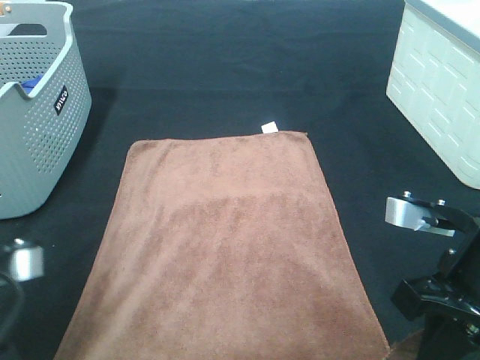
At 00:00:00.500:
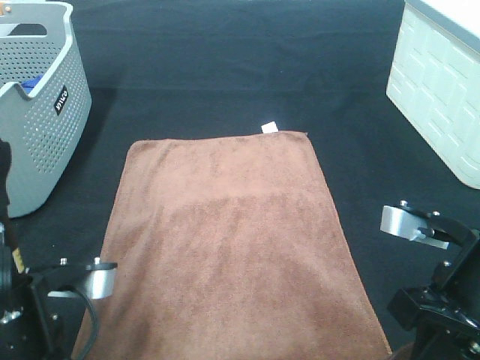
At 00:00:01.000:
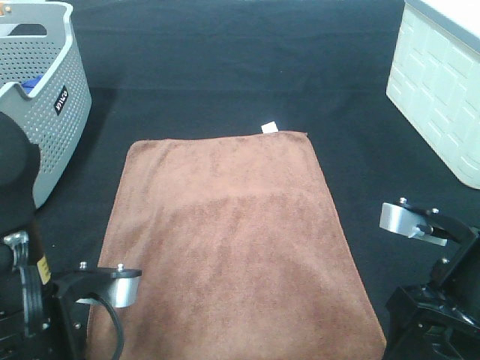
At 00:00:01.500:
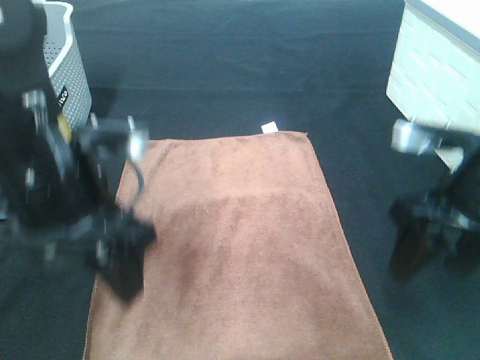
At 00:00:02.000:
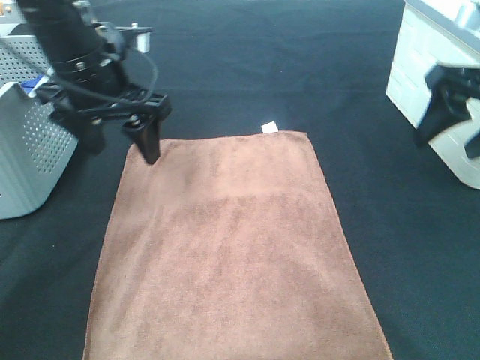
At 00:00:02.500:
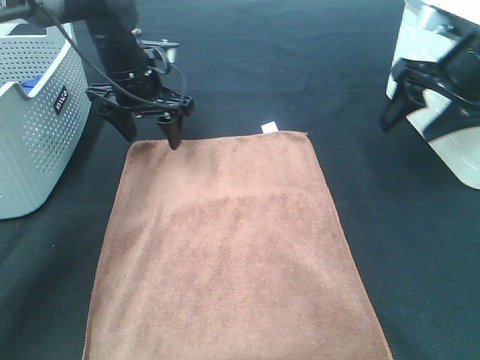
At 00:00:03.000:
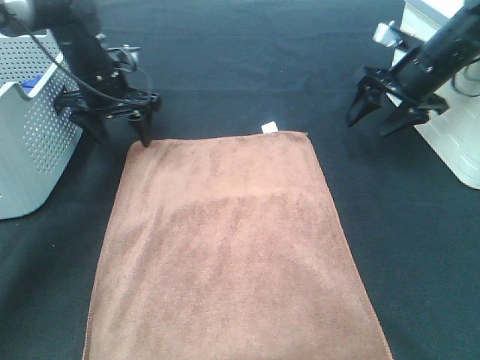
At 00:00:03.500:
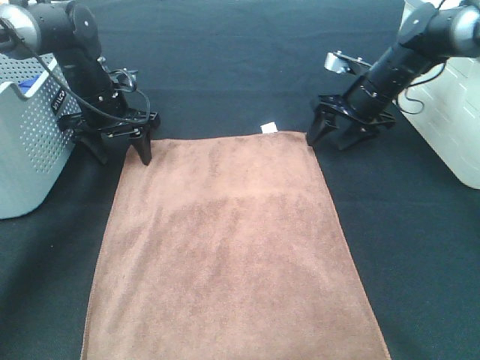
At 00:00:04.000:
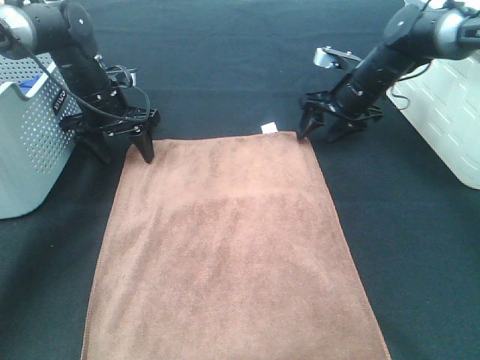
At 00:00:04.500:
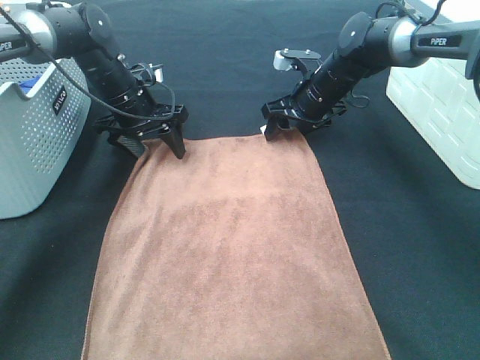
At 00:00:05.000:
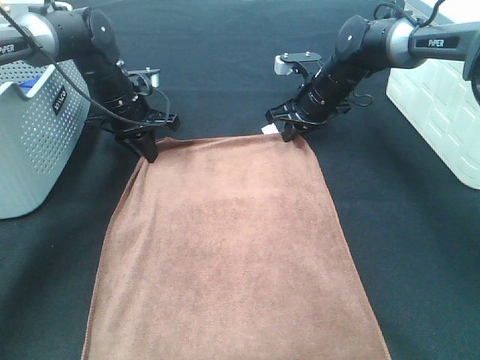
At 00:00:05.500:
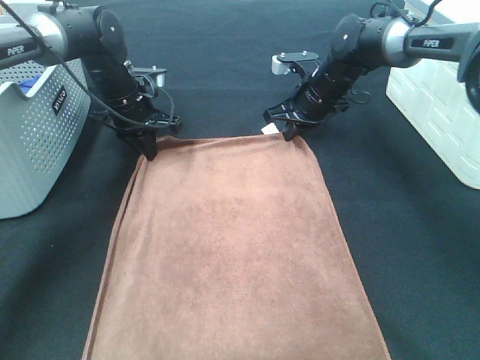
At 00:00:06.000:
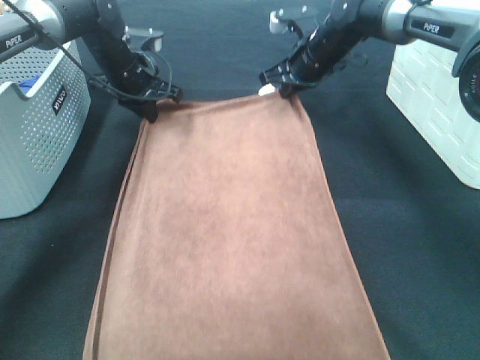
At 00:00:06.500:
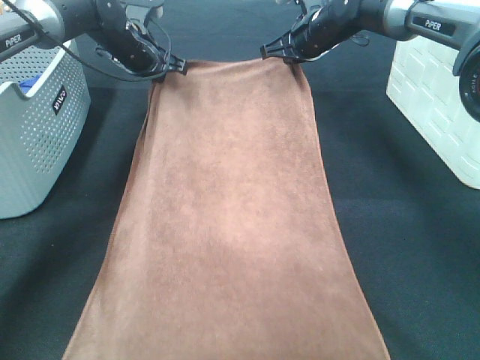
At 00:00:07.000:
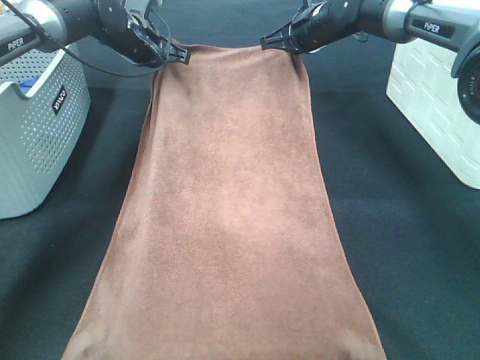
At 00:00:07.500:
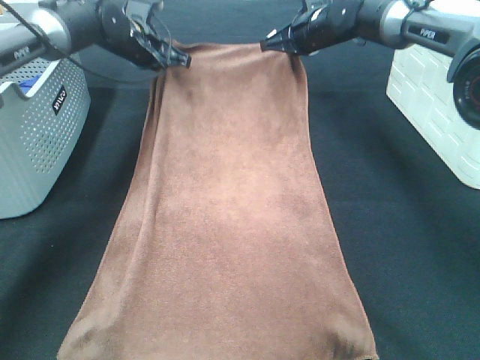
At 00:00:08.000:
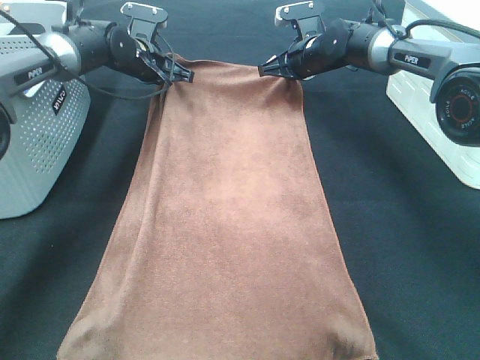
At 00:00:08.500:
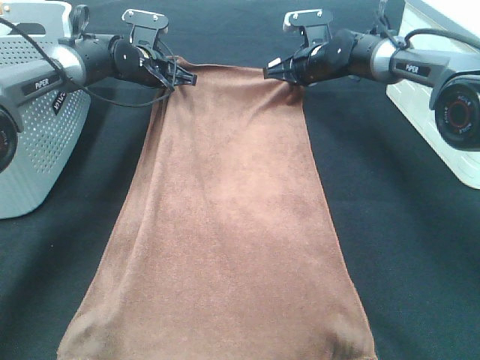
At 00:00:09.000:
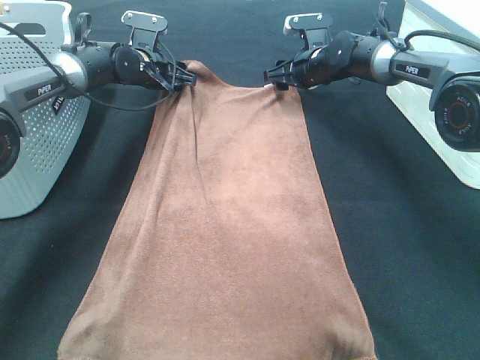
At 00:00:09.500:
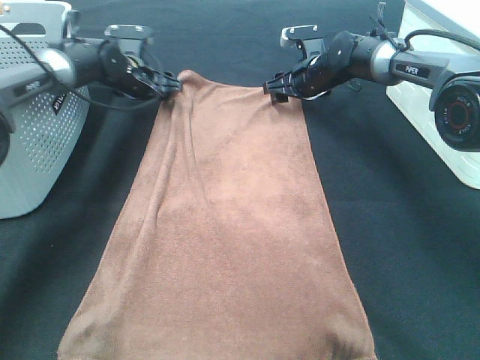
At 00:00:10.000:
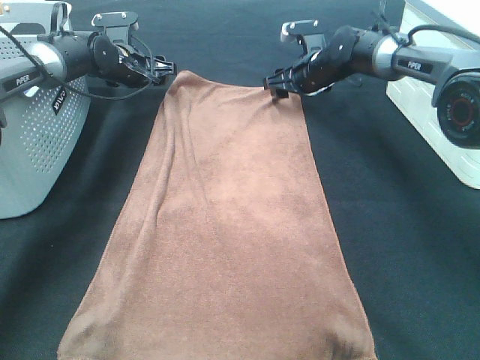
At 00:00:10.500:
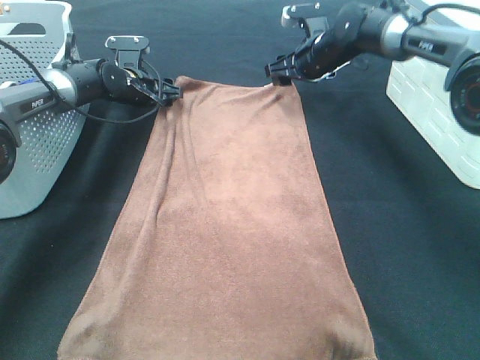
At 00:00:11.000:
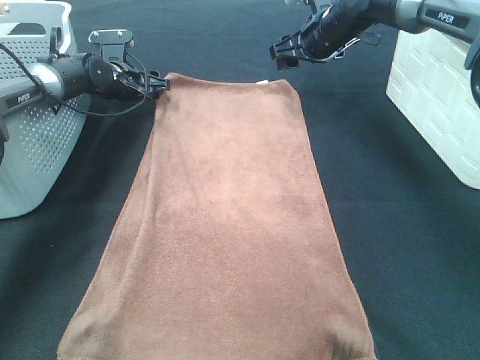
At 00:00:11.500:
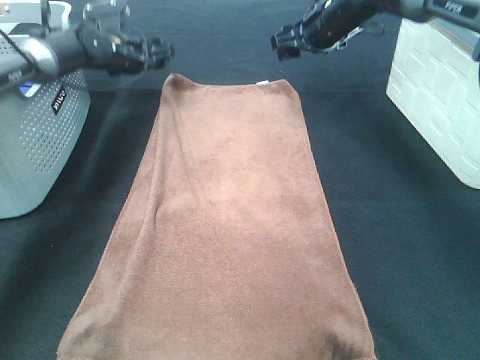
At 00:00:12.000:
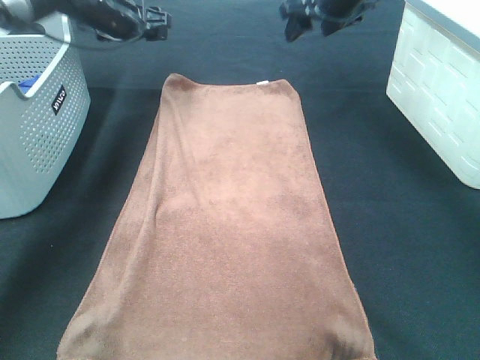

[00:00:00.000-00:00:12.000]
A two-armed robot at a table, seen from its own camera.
Task of the whole recording: Remove the towel and place it.
Step, 00:00:00.000 to 00:00:02.500: Right hand:adjust the brown towel.
Step, 00:00:00.000 to 00:00:04.000: Left hand:adjust the brown towel.
00:00:00.000 to 00:00:02.000: The left gripper heads forward, covering about 25 cm, and opens its fingers. Meanwhile the right gripper goes roughly 20 cm forward, upward and to the right, and opens up.
00:00:02.000 to 00:00:04.000: Both grippers travel together forward, downward and to the left, approximately 25 cm.
00:00:04.000 to 00:00:06.000: The left gripper ends up roughly 5 cm from where it was, and closes up, while the right gripper moves to the left and upward, some 10 cm, and closes its fingers.
00:00:06.000 to 00:00:08.000: The left gripper ends up approximately 5 cm from where it was.
00:00:08.000 to 00:00:10.000: The left gripper opens, while the right gripper opens.
00:00:10.000 to 00:00:12.000: The right gripper travels upward by some 15 cm; the left gripper heads upward, covering roughly 10 cm.

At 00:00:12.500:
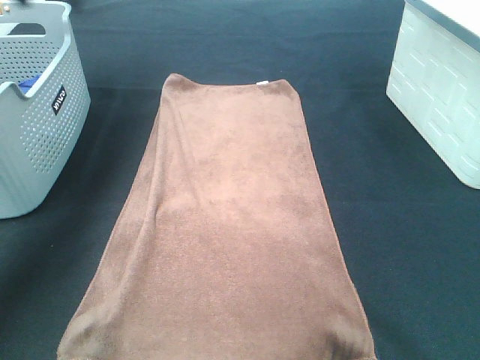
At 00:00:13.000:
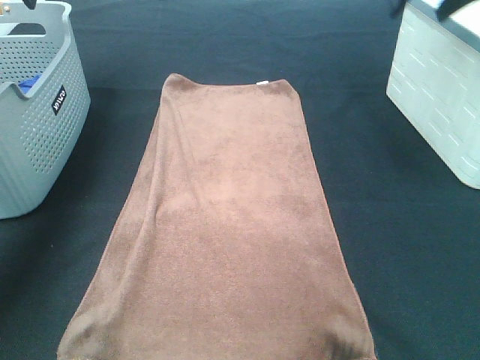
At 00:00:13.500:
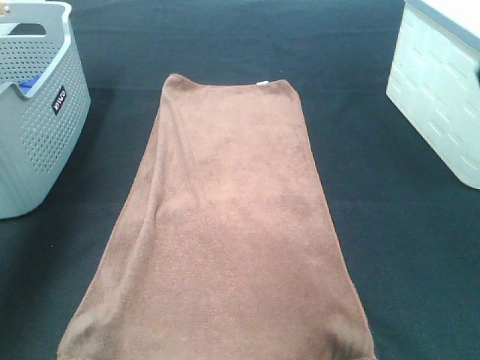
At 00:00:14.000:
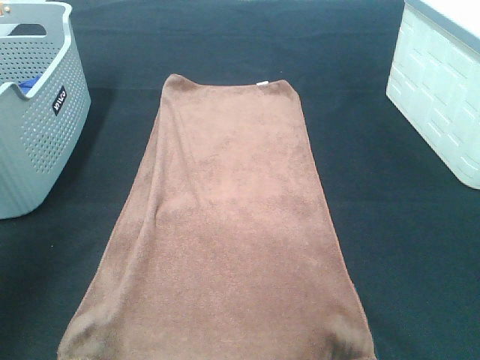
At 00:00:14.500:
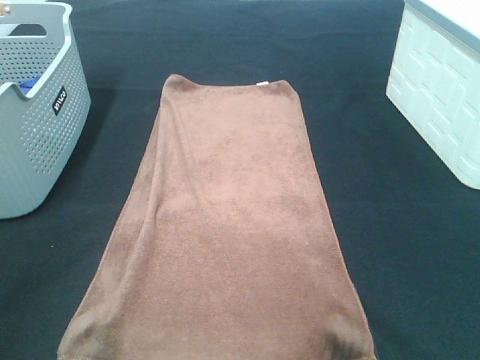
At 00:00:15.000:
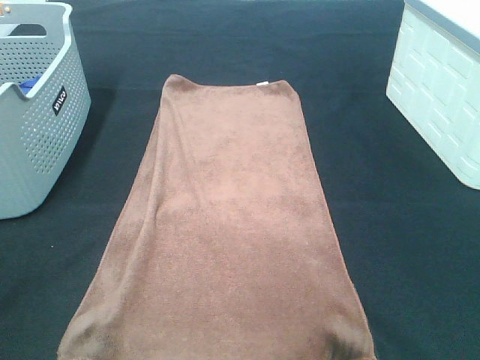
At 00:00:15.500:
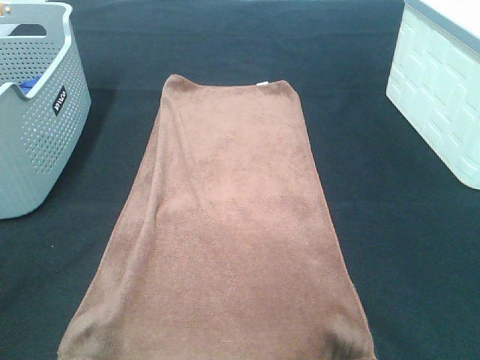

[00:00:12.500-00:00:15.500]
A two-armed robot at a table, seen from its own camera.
Task of the whole recording: Remove the towel and place it.
00:00:12.500 to 00:00:14.000: Both grippers move backward, some 35 cm.
